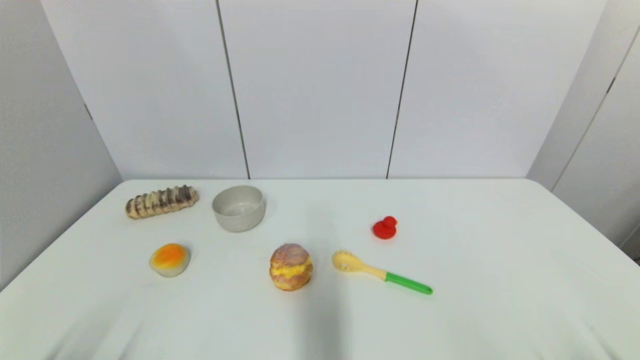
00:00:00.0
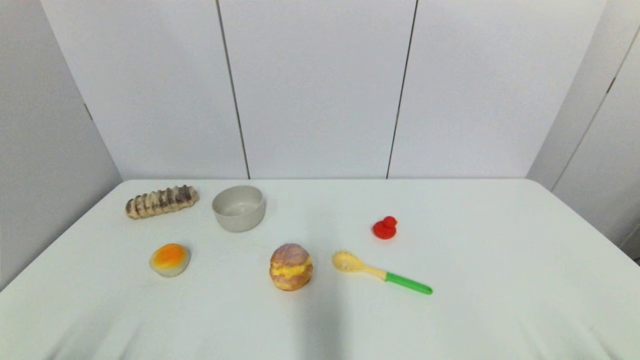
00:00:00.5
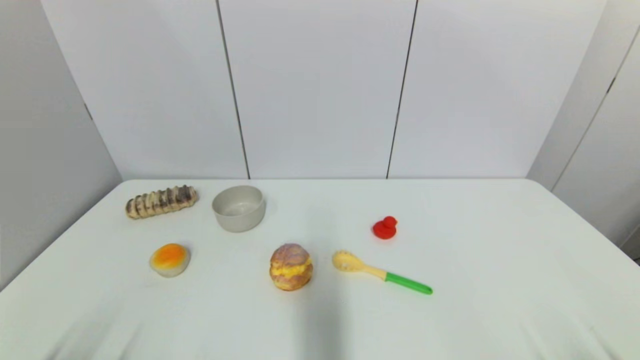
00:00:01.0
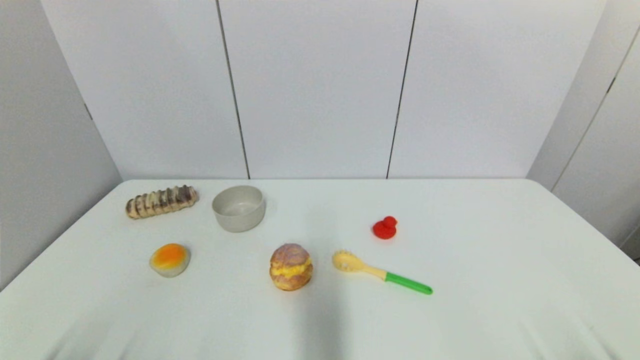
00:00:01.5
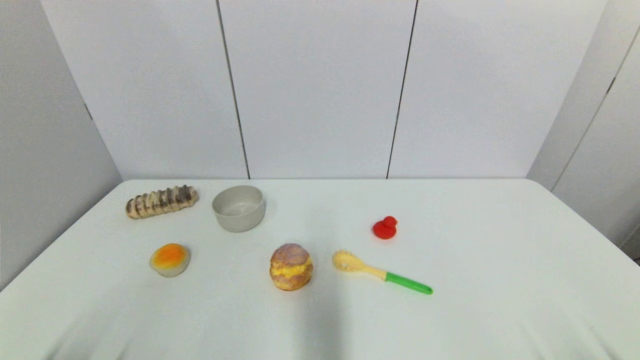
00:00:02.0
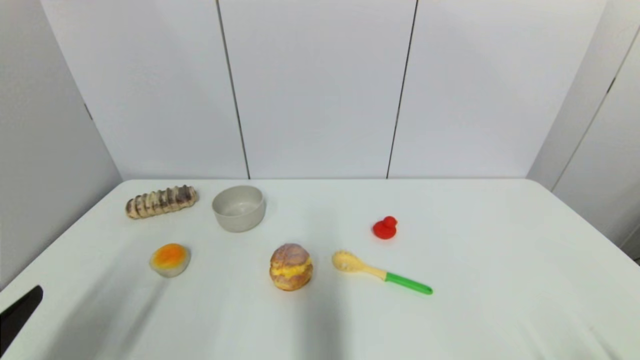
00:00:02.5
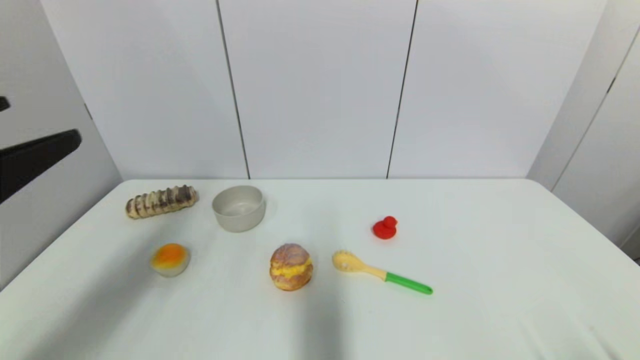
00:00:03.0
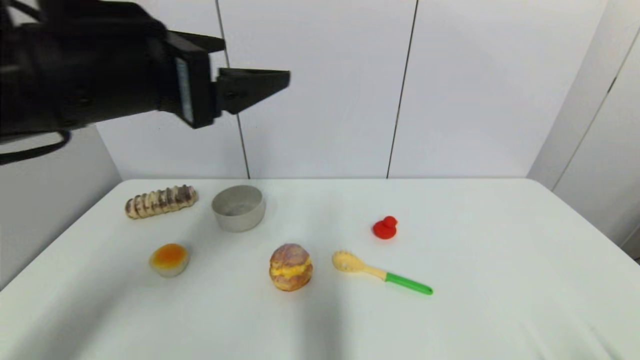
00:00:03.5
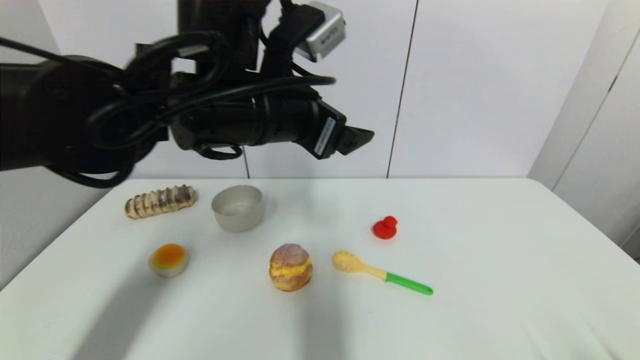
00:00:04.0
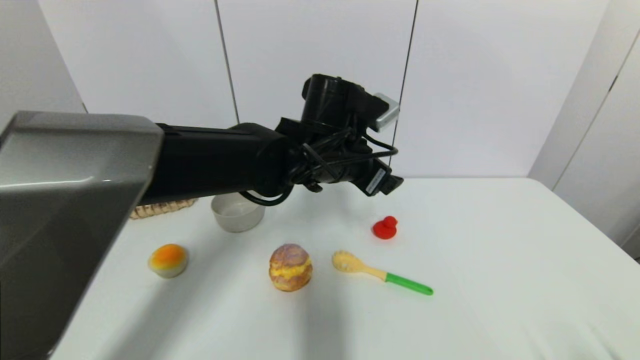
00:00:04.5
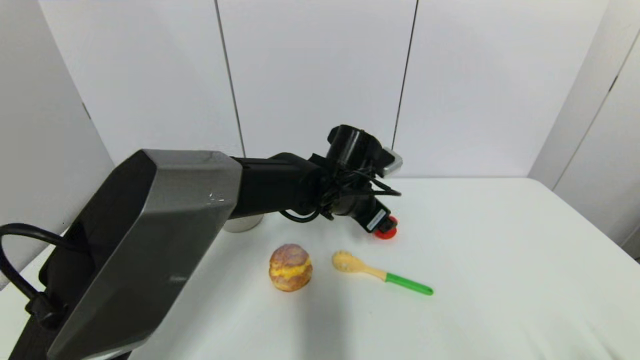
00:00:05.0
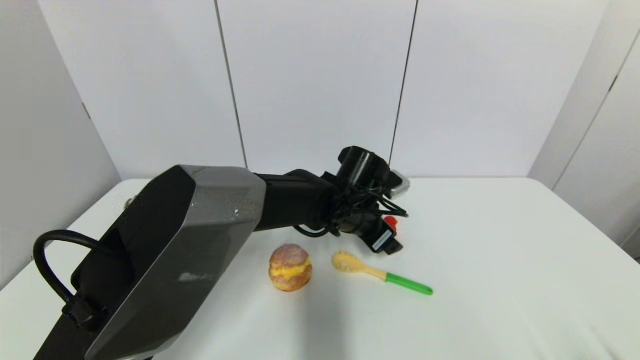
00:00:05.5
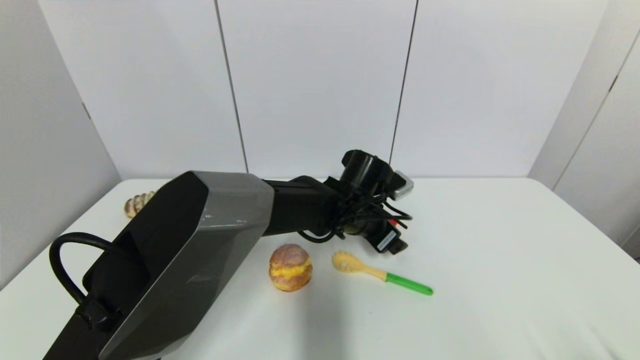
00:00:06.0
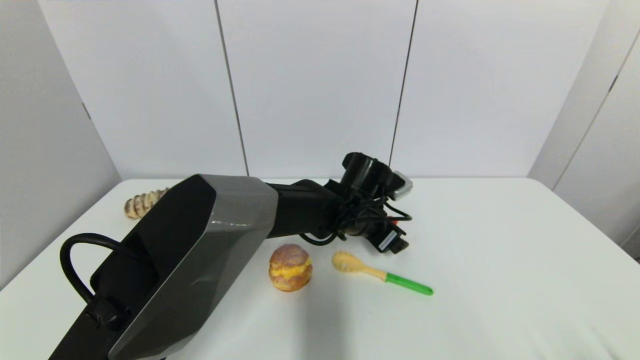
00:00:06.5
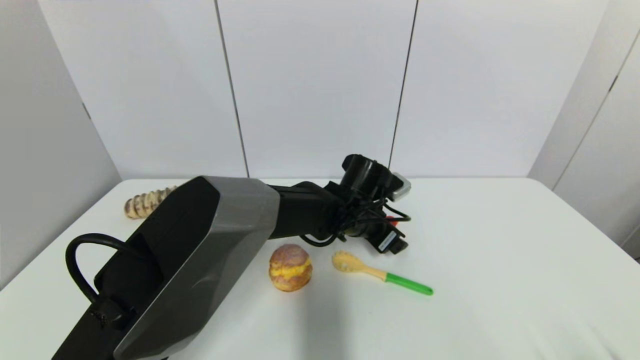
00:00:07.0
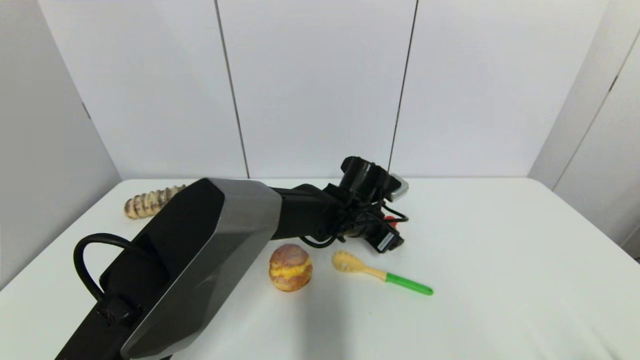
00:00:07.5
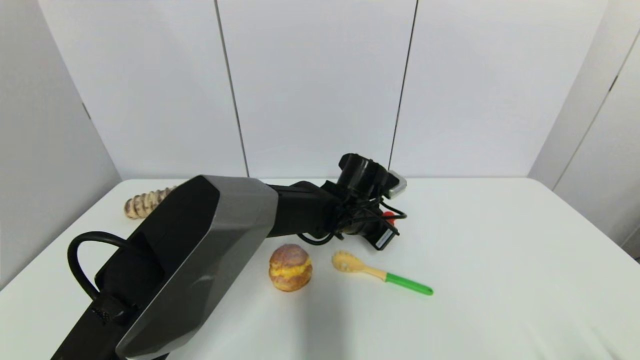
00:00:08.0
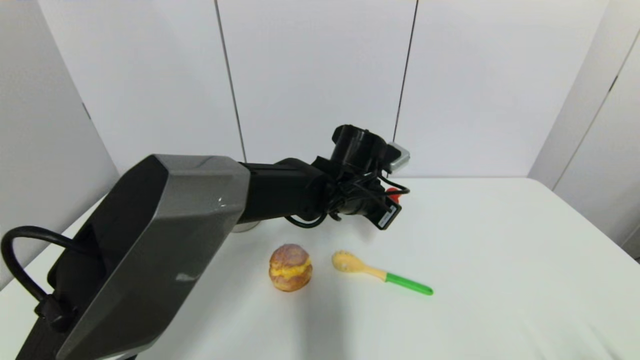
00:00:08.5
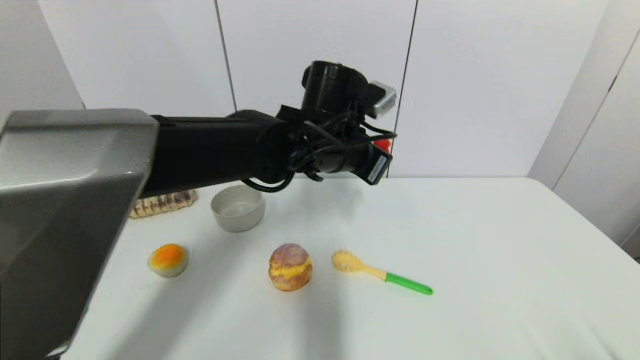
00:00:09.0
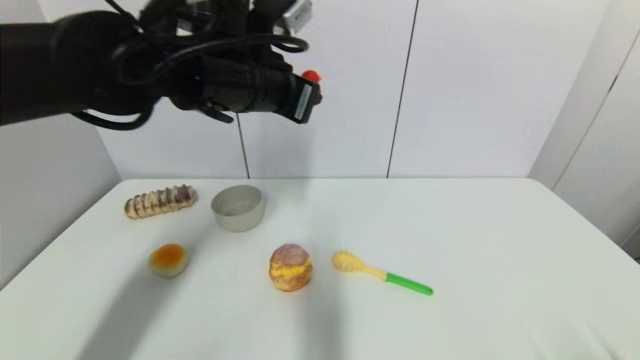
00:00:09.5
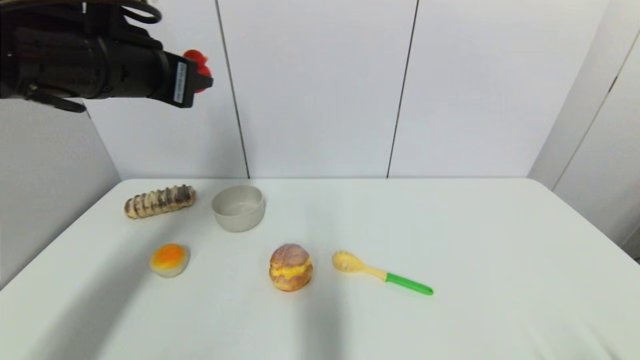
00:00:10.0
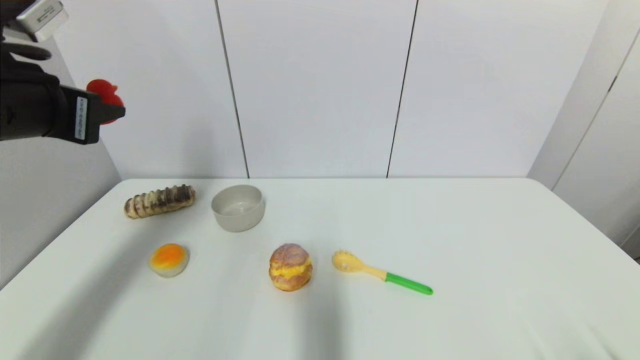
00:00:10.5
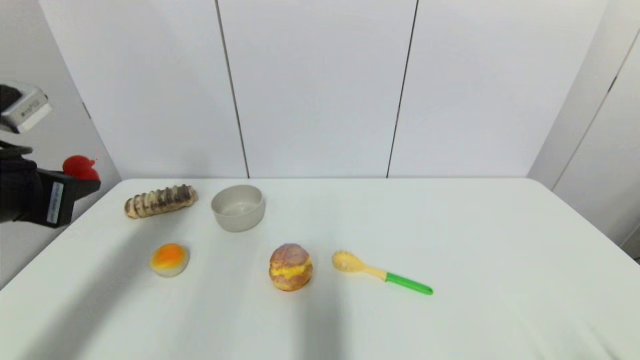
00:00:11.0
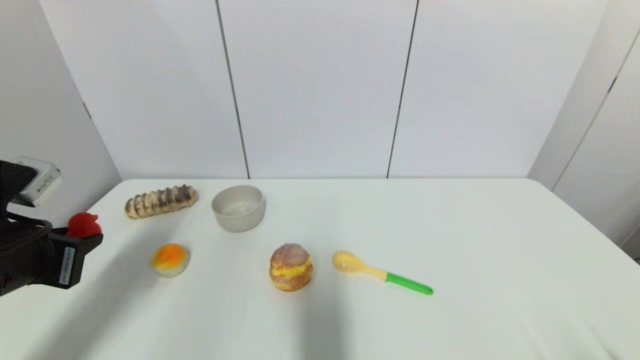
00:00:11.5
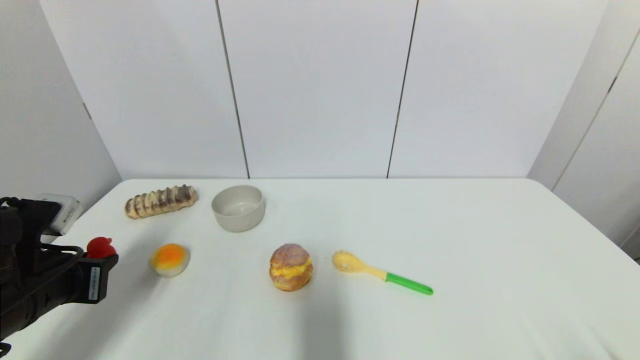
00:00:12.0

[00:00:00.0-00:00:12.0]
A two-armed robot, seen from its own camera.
Step, 00:00:02.5 to 00:00:08.0: Grasp the red duck with left gripper.
00:00:00.0 to 00:00:02.0: The two grippers keep their place.
00:00:02.0 to 00:00:04.0: The left gripper travels forward, to the right and upward by roughly 40 cm.
00:00:04.0 to 00:00:06.0: The left gripper moves downward, to the right and forward, approximately 25 cm.
00:00:06.0 to 00:00:08.0: The left gripper closes.
00:00:08.0 to 00:00:10.0: The left gripper is displaced to the left, upward and backward by about 35 cm.
00:00:10.0 to 00:00:12.0: The left gripper goes about 25 cm downward and to the left.

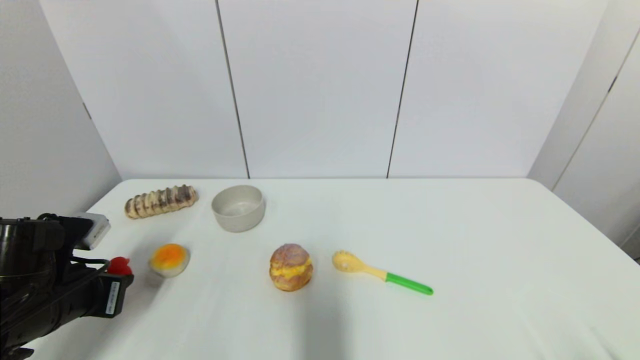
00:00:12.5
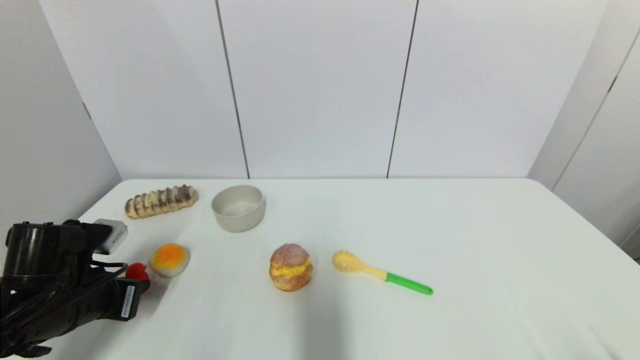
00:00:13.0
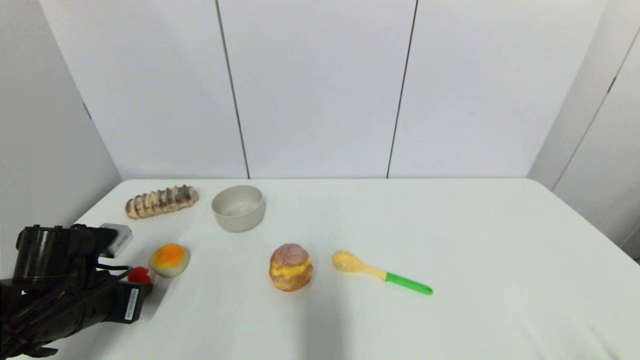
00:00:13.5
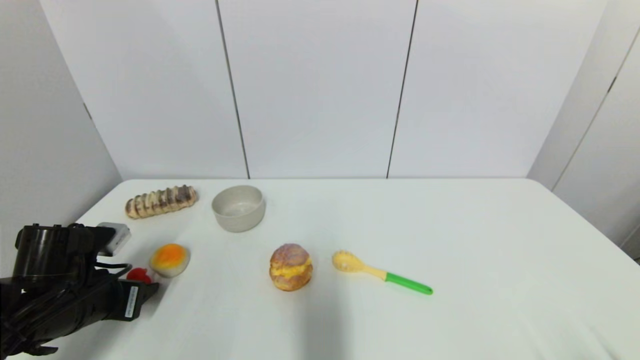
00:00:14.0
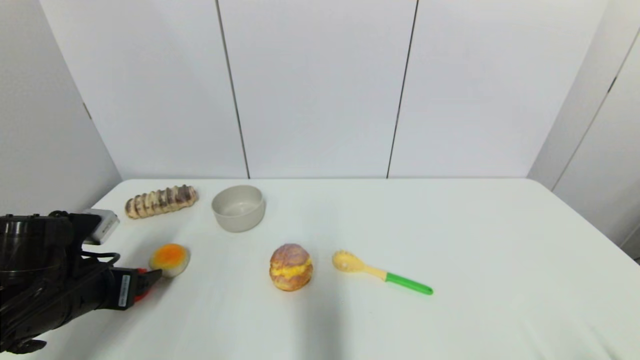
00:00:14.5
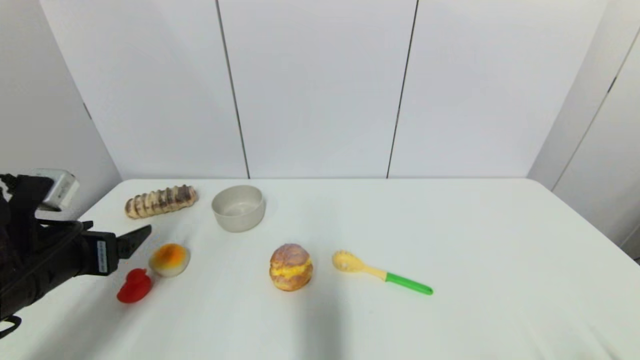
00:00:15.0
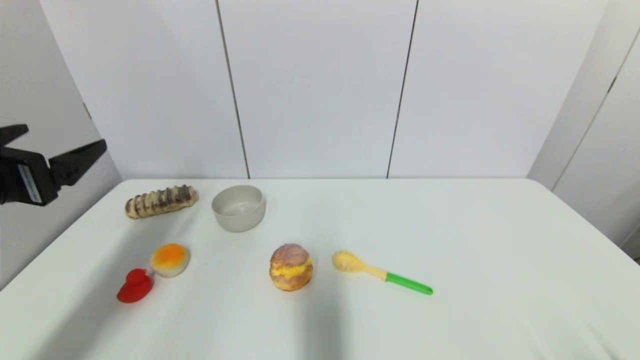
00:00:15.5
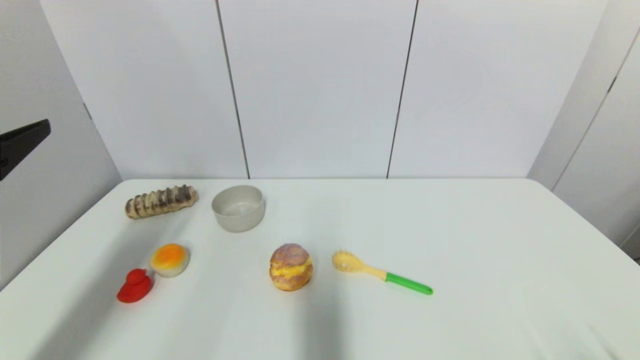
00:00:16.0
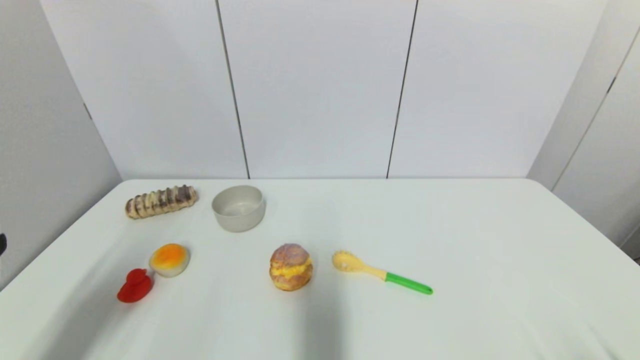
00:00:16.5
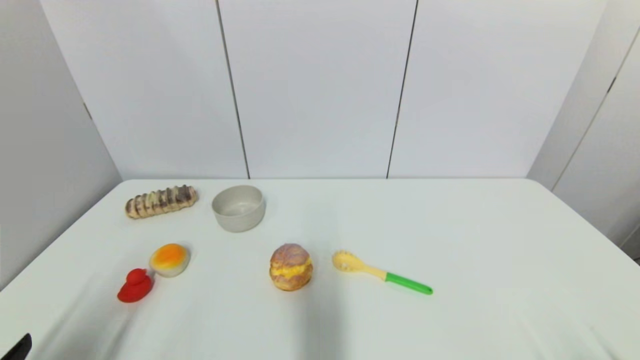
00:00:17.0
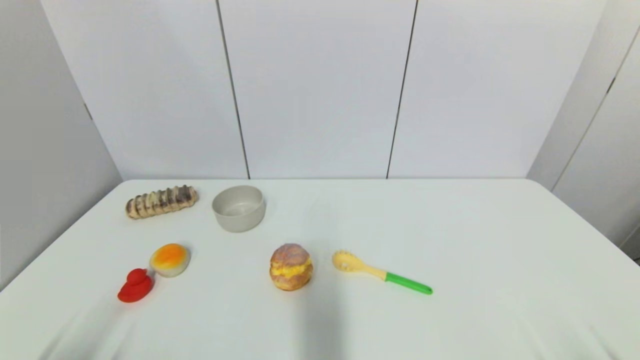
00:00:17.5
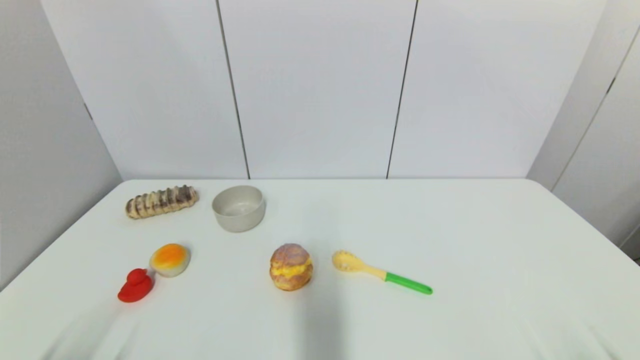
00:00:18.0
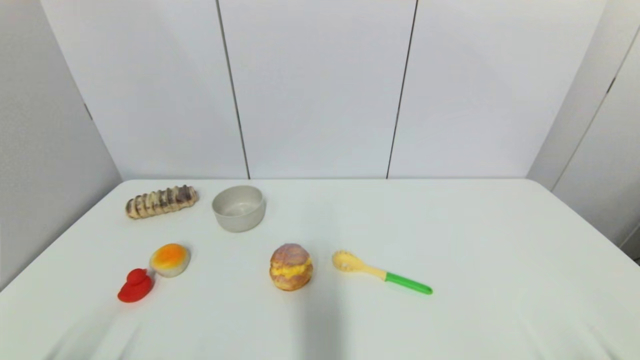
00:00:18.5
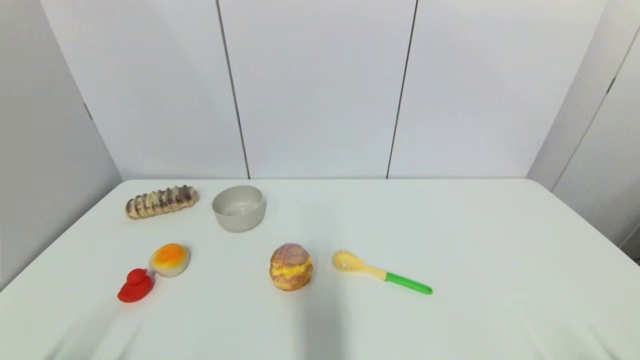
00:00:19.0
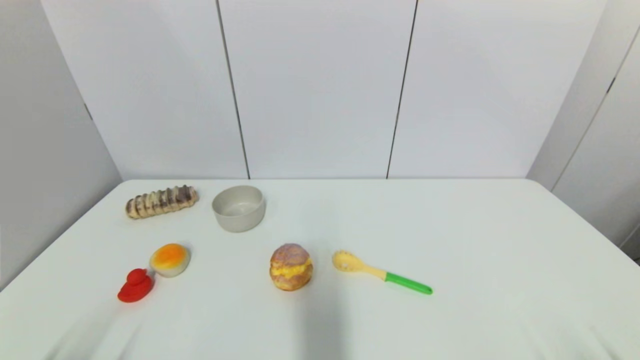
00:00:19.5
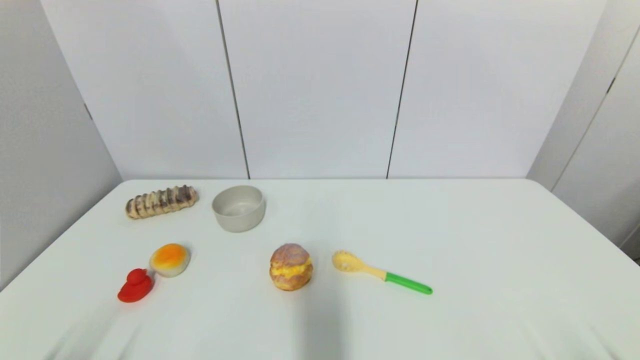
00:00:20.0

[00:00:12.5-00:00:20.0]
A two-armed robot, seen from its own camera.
Step, 00:00:12.5 to 00:00:14.5: Place the red duck on the table with left gripper.
00:00:12.5 to 00:00:14.5: The left gripper opens.
00:00:14.5 to 00:00:16.5: The left gripper goes some 20 cm backward and upward.
00:00:16.5 to 00:00:18.0: The left gripper goes roughly 15 cm downward.
00:00:18.0 to 00:00:20.0: Both grippers stay put.
